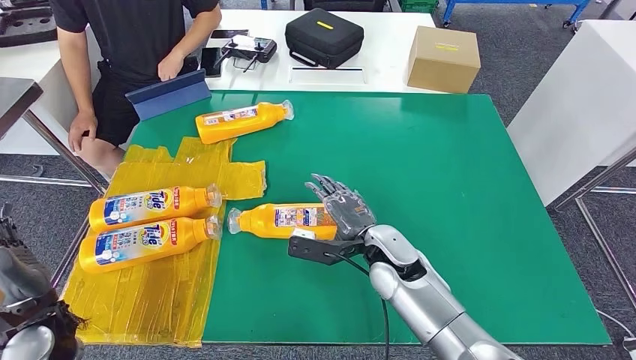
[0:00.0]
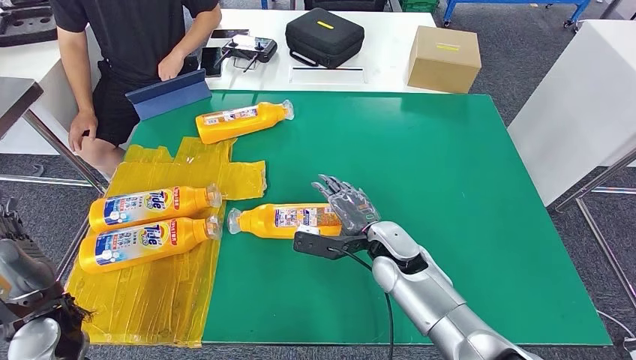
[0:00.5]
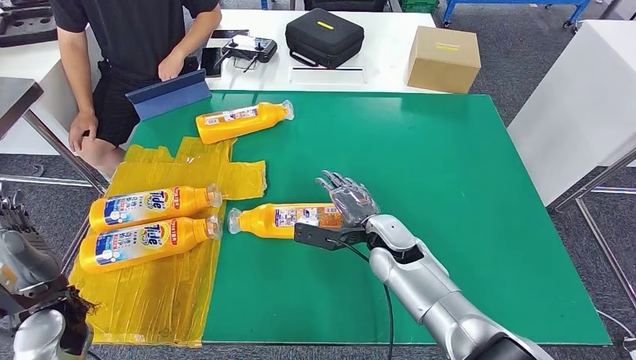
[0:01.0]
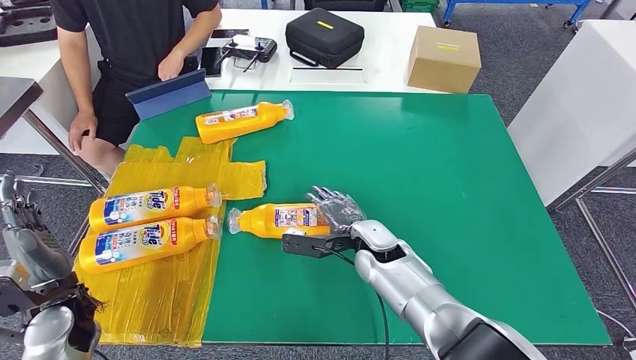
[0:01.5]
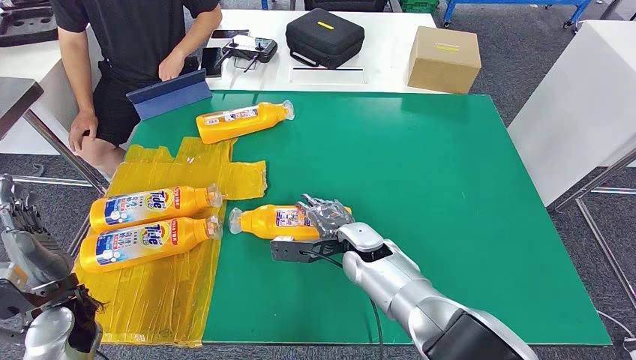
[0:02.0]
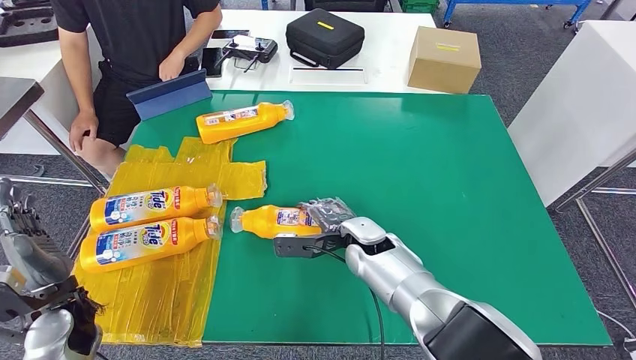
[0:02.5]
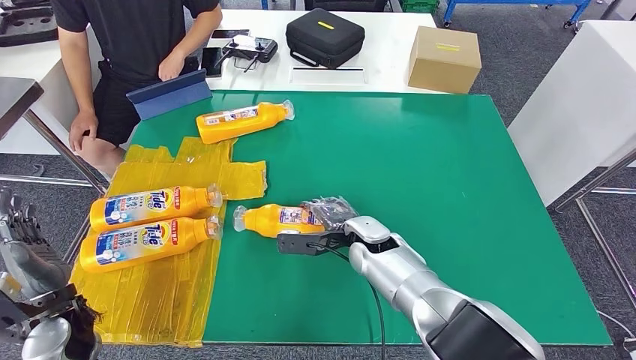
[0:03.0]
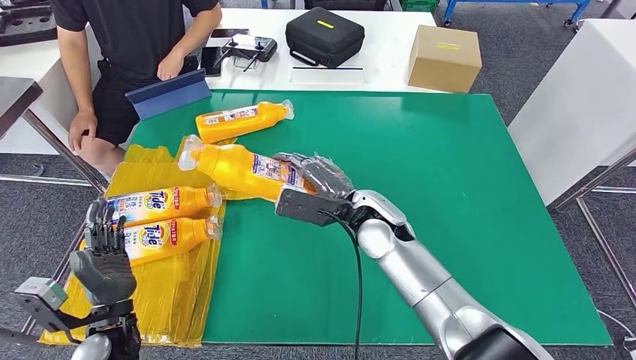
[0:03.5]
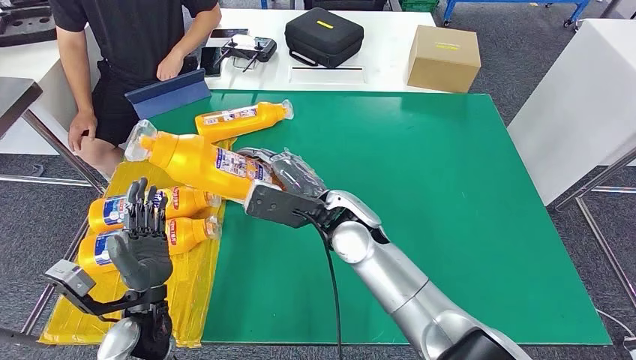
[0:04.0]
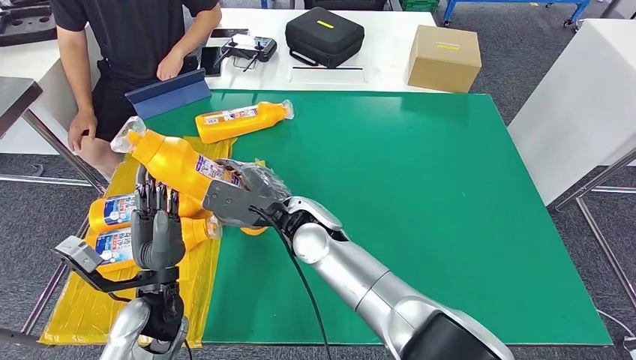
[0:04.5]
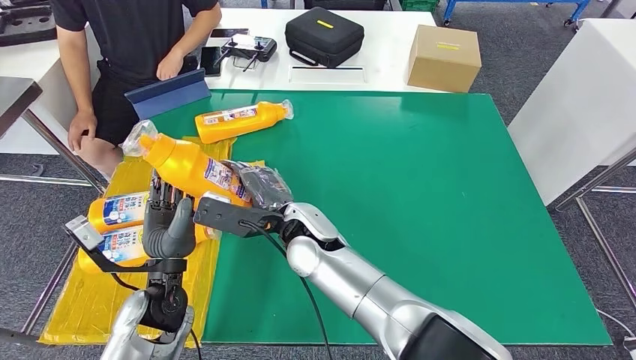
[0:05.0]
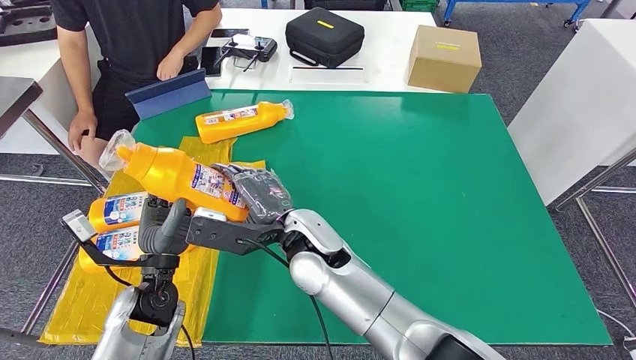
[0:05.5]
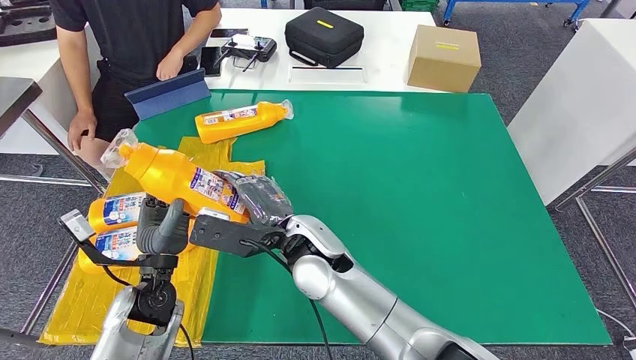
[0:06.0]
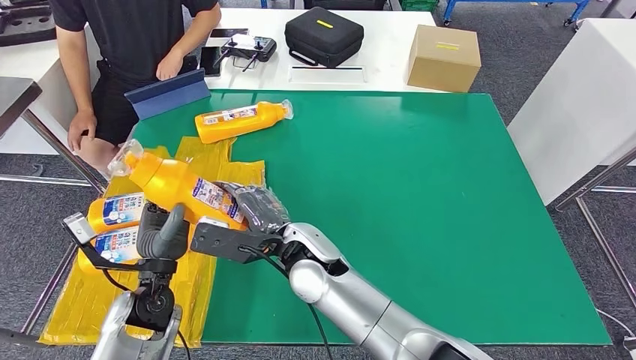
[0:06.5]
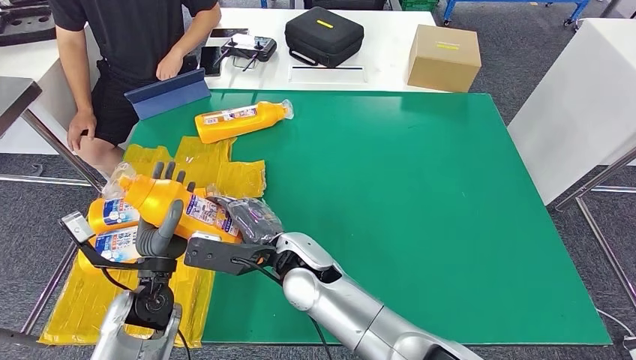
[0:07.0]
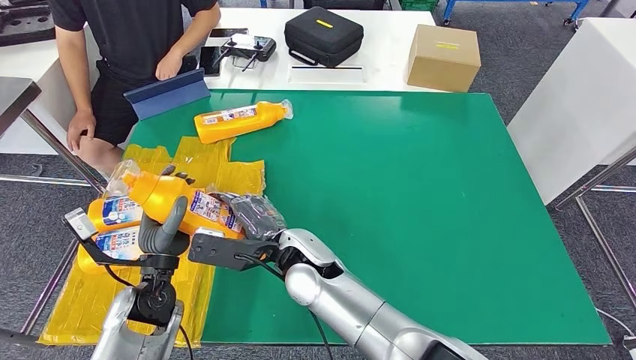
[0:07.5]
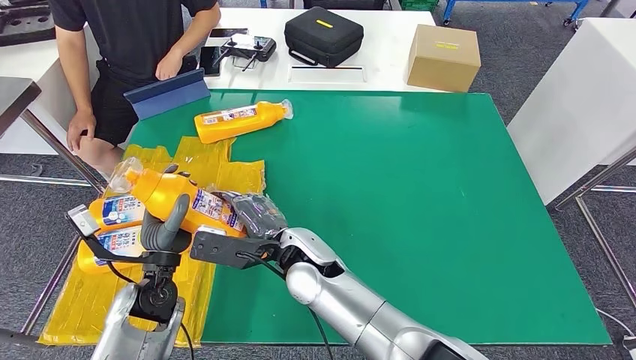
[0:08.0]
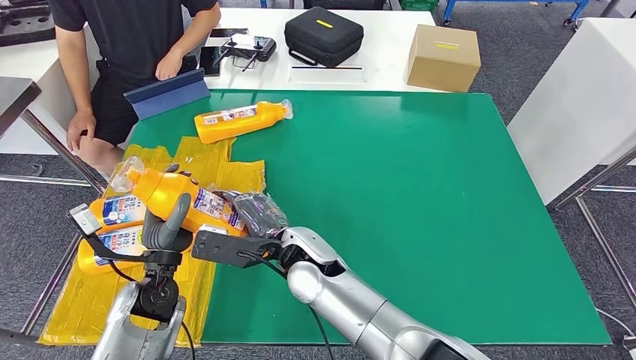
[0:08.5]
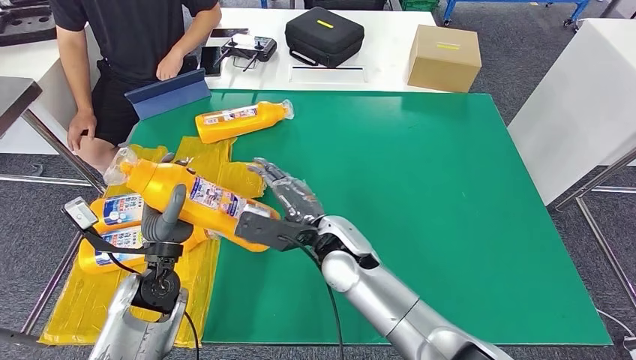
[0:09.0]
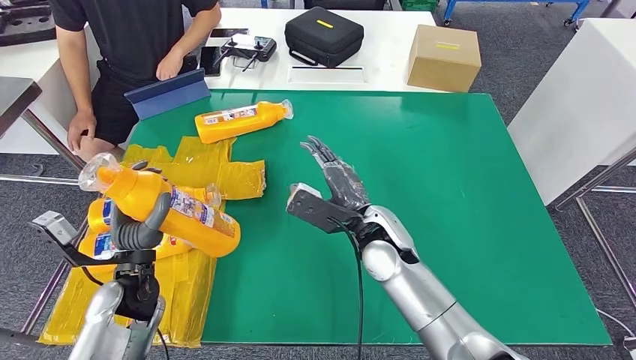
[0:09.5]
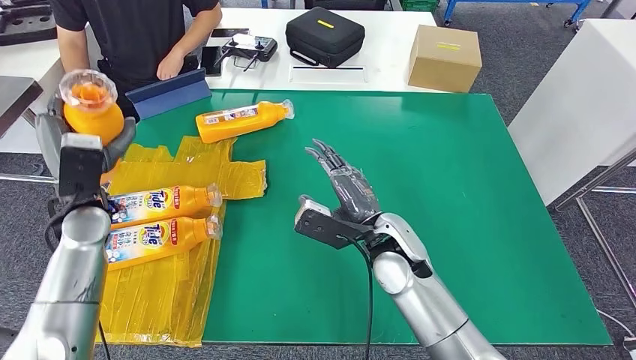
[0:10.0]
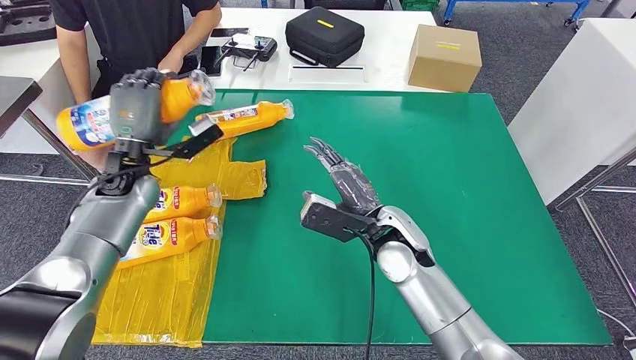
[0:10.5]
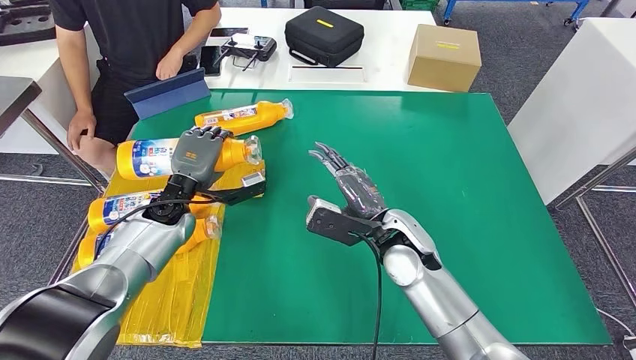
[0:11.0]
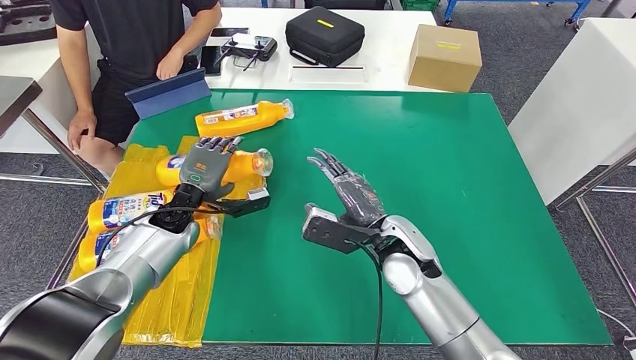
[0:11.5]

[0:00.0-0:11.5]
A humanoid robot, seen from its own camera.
Step, 0:00.0 to 0:05.5: Pick up the bottle from the table.
Step, 0:06.0 to 0:11.5: Flip the bottle to face forward.
0:00.0 to 0:02.0: The right hand moves some 5 cm.
0:04.0 to 0:06.0: The right hand heads to the left, covering approximately 5 cm.
0:06.0 to 0:07.5: The hands make only small movements.
0:07.5 to 0:09.5: The right hand travels to the right by about 15 cm.
0:09.5 to 0:11.5: The left hand moves forward, approximately 15 cm.
